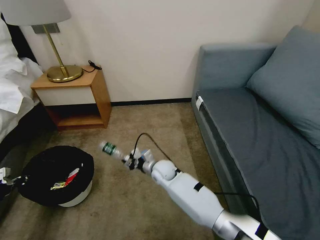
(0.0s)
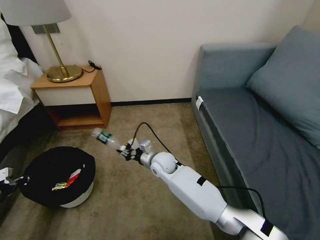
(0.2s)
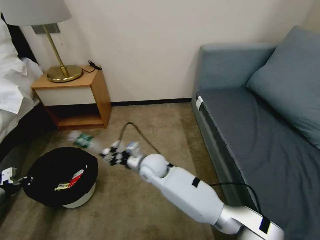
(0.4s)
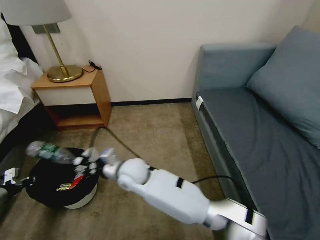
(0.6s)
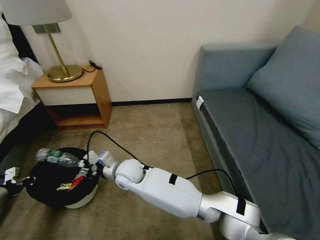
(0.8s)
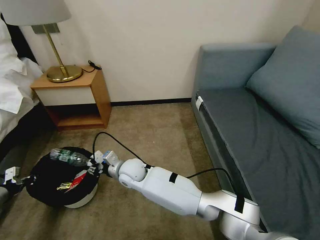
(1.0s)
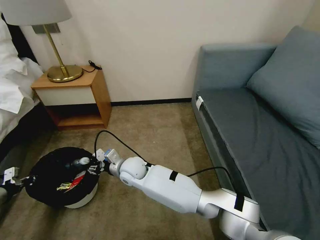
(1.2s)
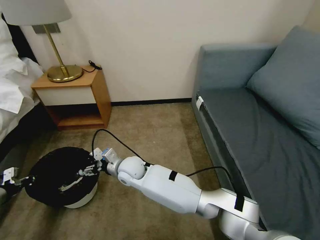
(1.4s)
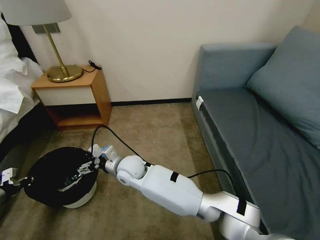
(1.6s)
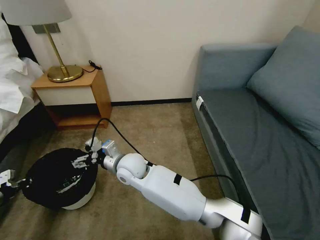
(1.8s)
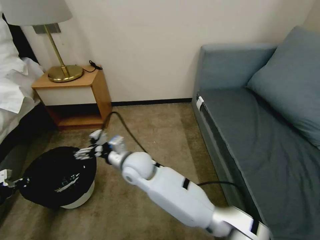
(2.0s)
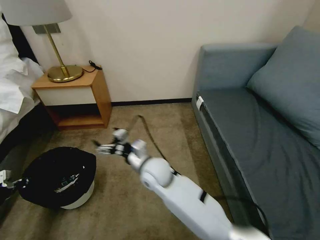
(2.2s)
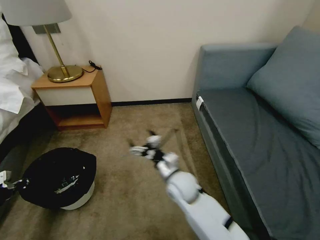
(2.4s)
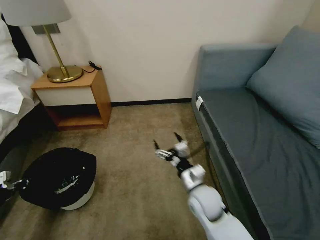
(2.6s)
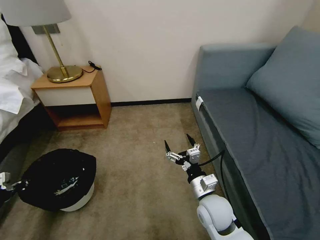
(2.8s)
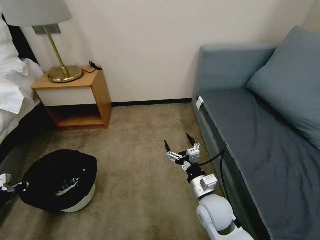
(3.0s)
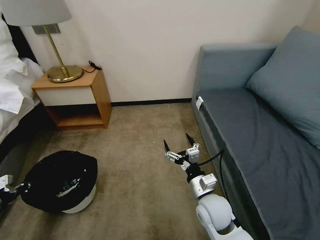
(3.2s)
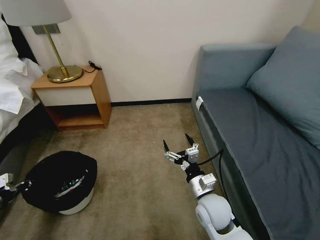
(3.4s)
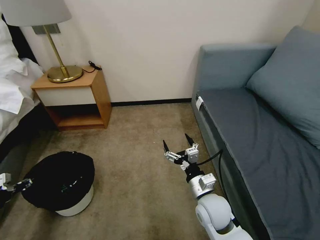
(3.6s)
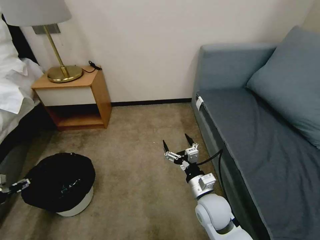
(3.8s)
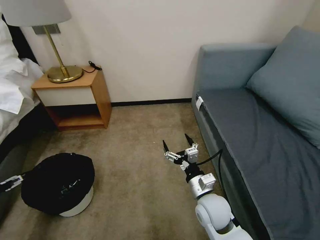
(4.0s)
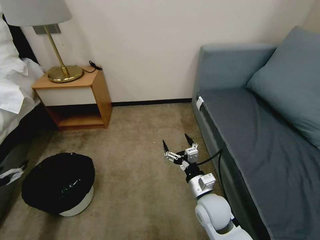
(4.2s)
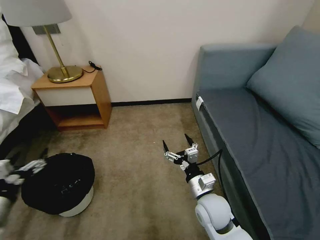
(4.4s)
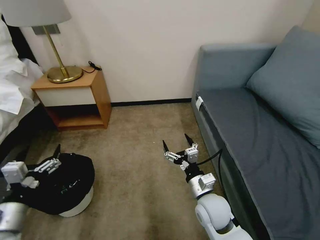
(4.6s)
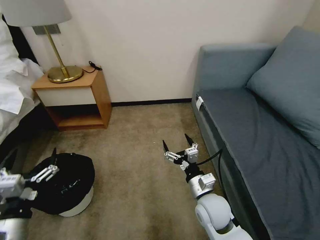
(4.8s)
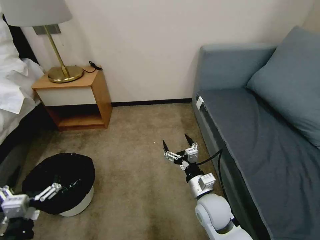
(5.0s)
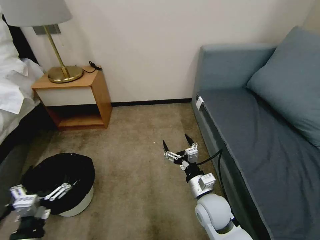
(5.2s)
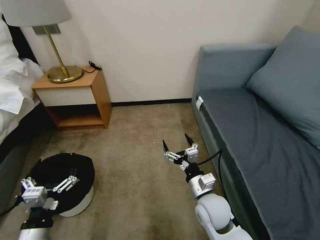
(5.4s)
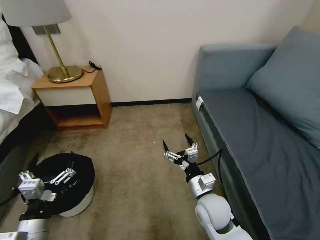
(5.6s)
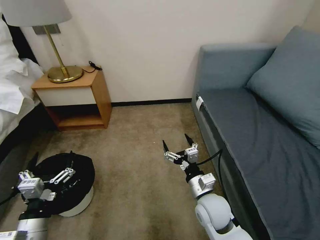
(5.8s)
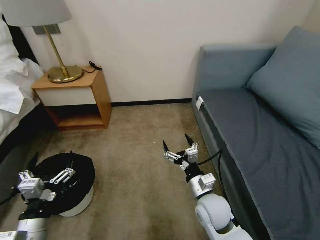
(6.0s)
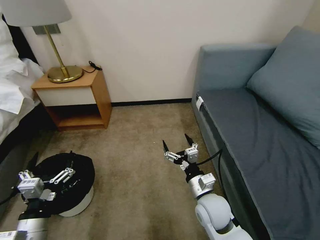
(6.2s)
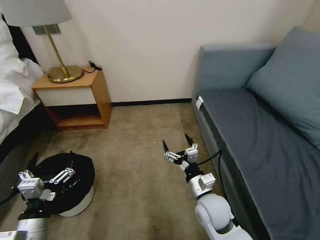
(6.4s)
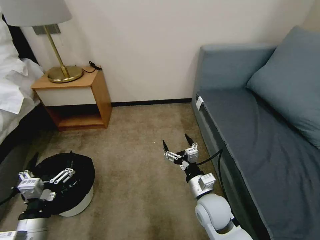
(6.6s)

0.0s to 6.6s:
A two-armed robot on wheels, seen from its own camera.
Task of the whole recording: Pick up the trash bin, then pick up the garbage on the floor and place it into the trash bin.
0.0s to 1.6s: The right gripper is displaced to the left and upward by about 15 cm, and opens up.
1.6s to 3.2s: The right gripper heads to the right and backward, covering approximately 30 cm.
3.2s to 5.0s: The left gripper goes roughly 25 cm to the right and backward, and opens up.
5.0s to 6.6s: The grippers make only small movements.

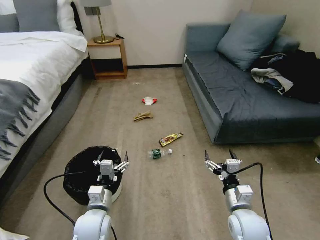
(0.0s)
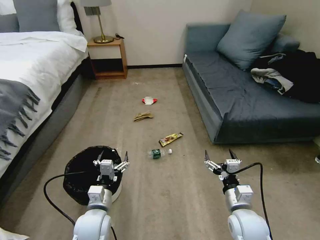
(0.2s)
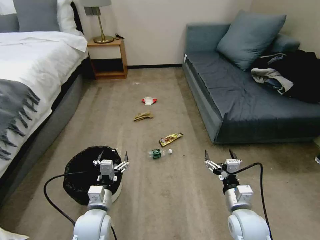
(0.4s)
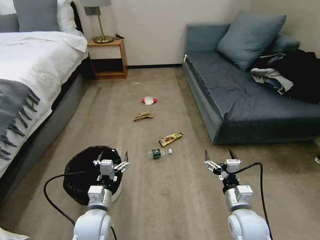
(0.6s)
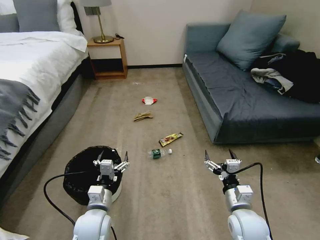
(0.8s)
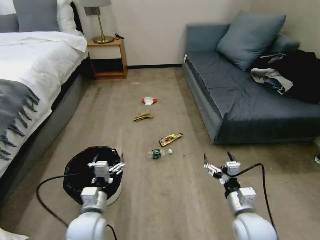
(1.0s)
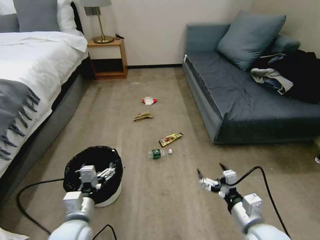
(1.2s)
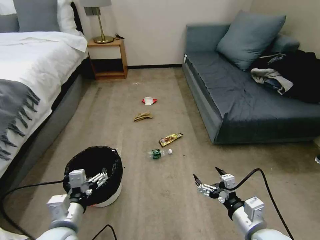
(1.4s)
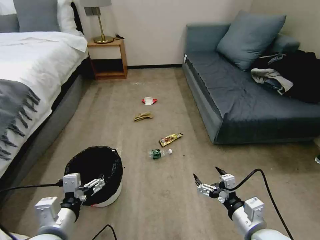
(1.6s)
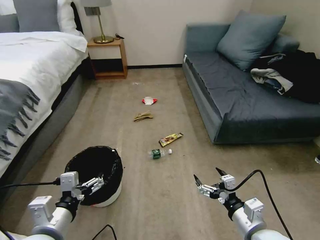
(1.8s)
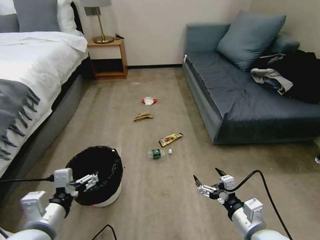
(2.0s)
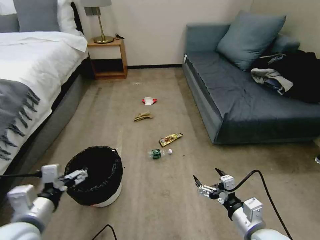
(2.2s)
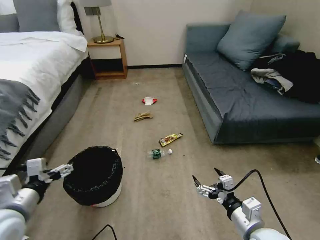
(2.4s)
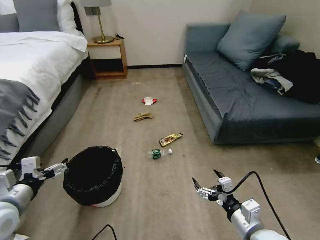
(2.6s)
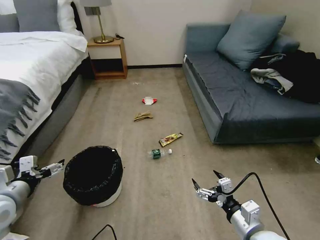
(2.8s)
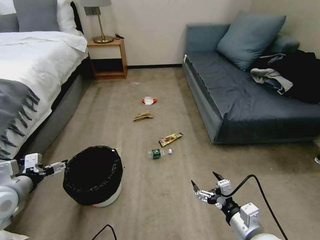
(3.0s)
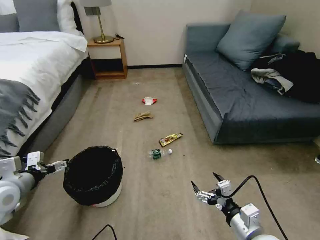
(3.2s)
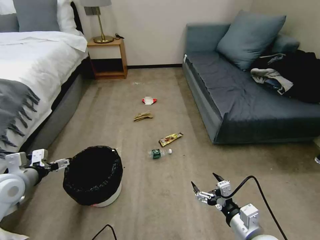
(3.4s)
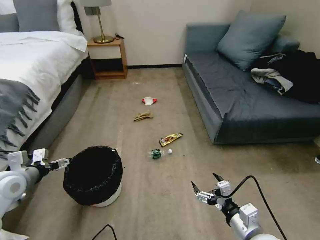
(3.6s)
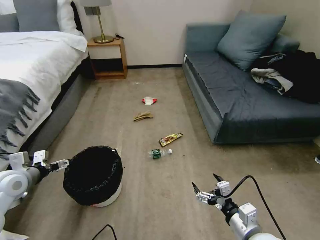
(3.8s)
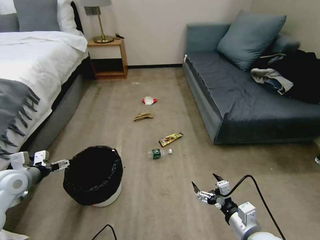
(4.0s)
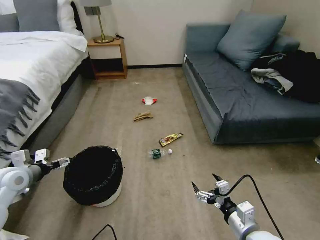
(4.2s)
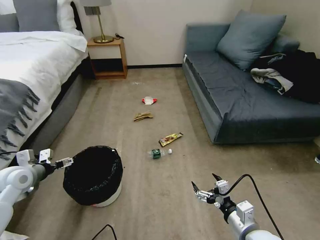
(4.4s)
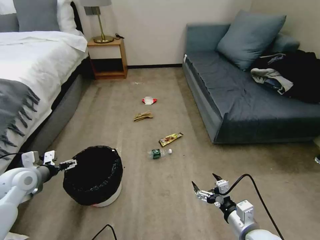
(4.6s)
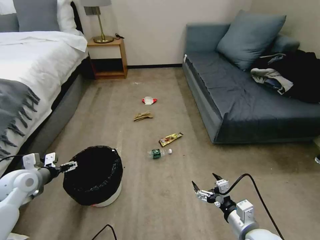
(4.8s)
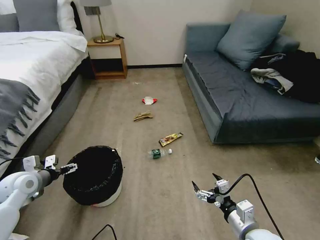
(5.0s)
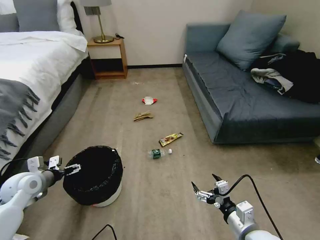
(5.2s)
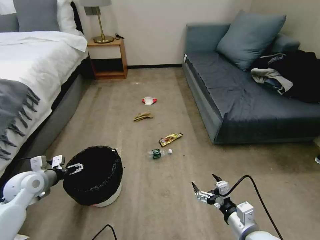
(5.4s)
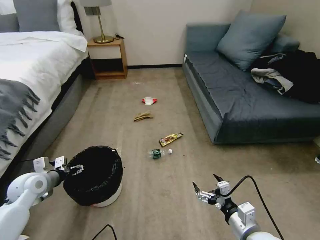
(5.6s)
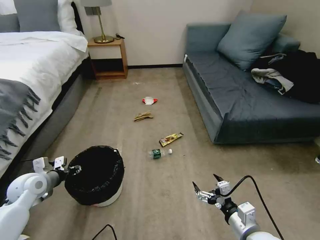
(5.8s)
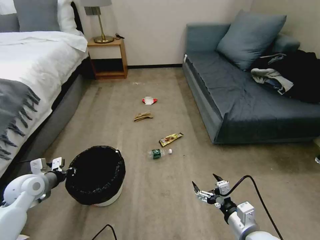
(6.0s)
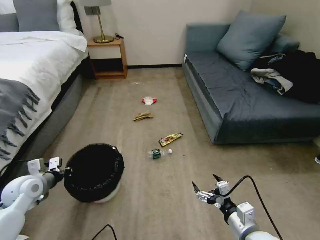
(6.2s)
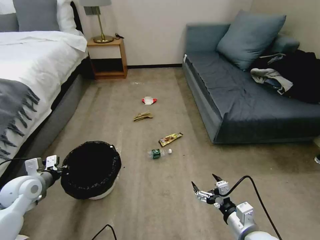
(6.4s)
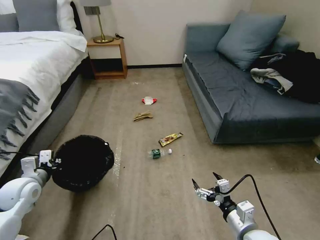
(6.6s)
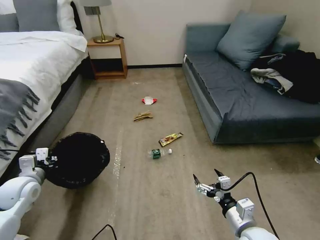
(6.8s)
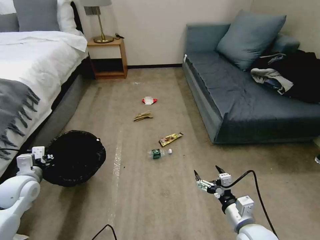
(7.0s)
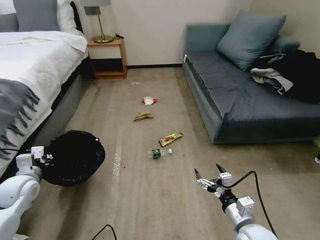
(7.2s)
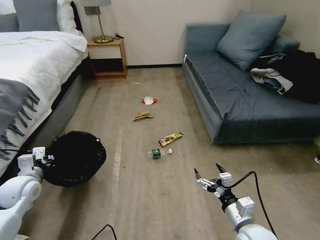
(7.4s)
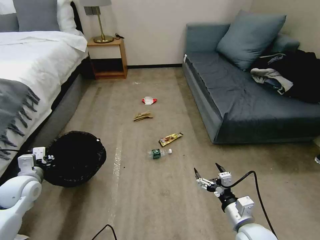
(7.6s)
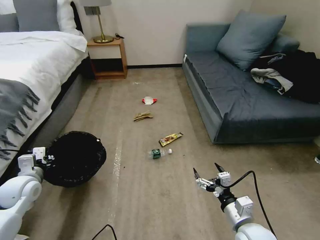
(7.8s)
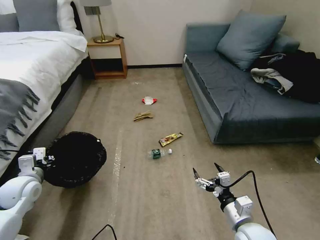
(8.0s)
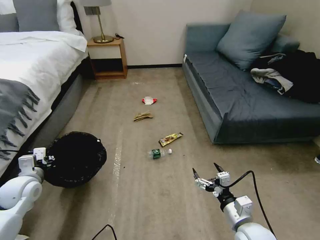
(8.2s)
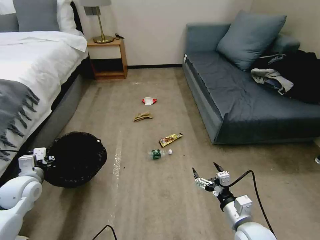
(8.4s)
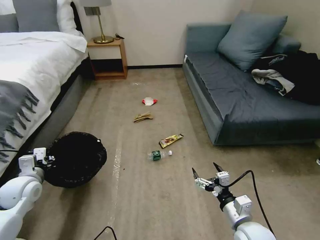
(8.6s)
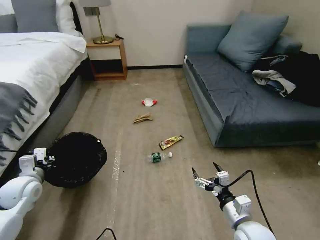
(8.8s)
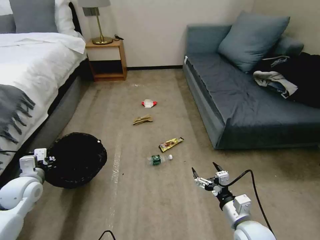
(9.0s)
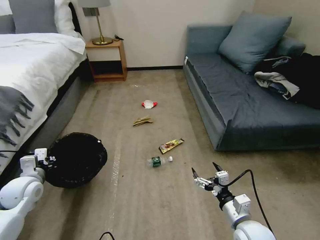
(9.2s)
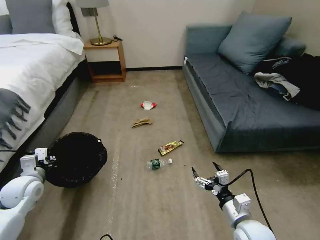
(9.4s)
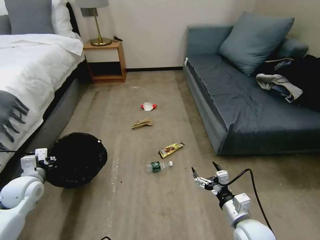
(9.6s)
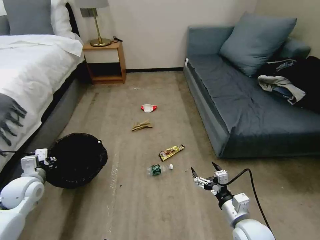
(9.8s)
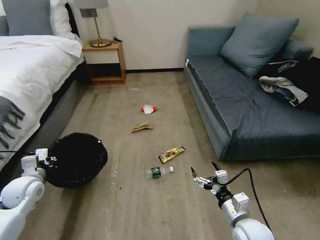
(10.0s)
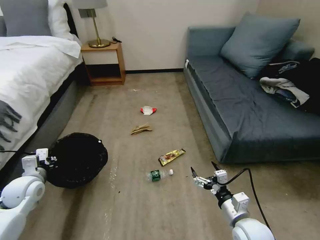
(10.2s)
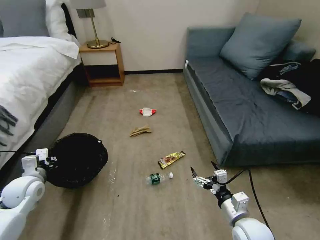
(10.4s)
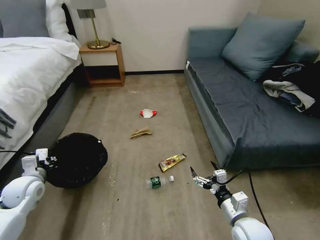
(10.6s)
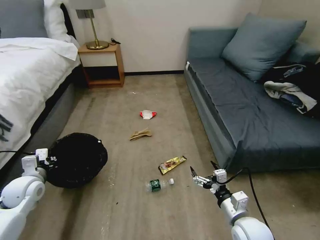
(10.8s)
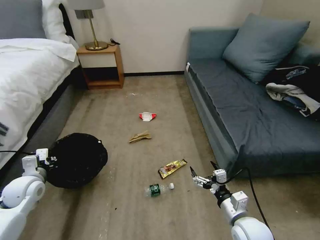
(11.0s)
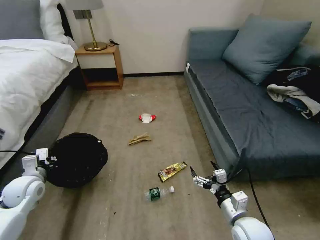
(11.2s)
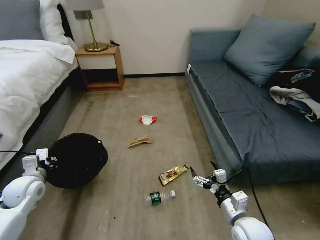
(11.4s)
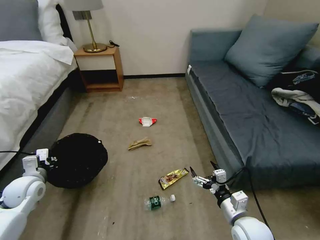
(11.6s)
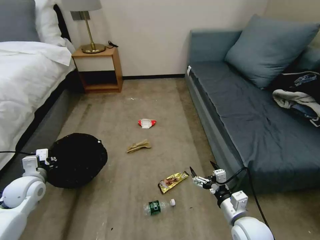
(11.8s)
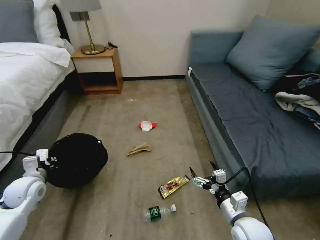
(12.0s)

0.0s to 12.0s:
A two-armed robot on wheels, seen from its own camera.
Task of the whole recording: Pick up the trash bin, then pick up the garbage on the floor and place it into the trash bin.
1.6s to 3.0s: The left gripper travels to the left and forward by some 20 cm.
3.0s to 4.4s: The left gripper moves forward, approximately 10 cm.
4.4s to 6.0s: The left gripper closes.
7.6s to 9.0s: Neither gripper changes place.

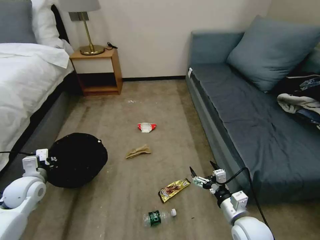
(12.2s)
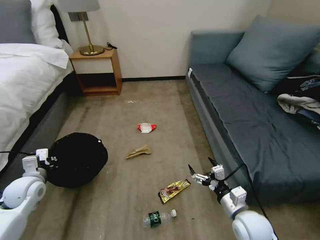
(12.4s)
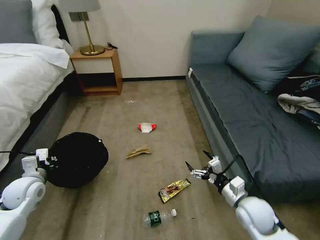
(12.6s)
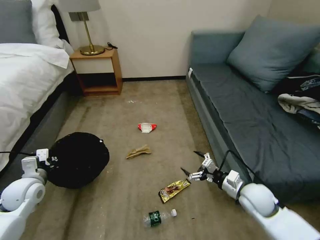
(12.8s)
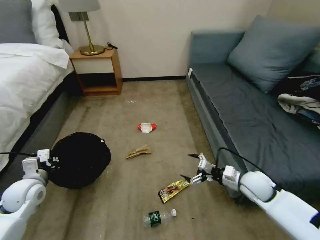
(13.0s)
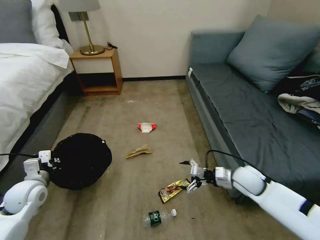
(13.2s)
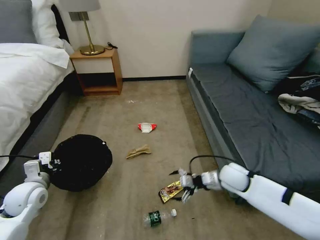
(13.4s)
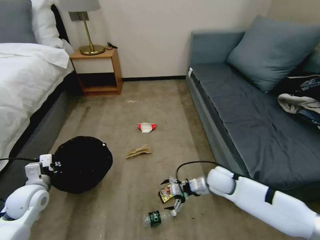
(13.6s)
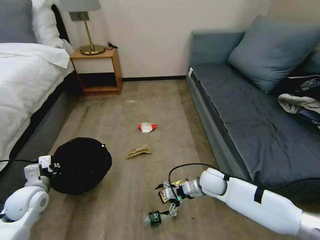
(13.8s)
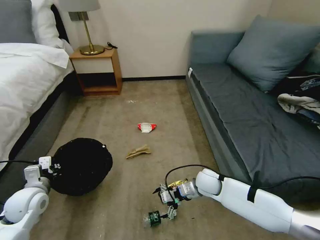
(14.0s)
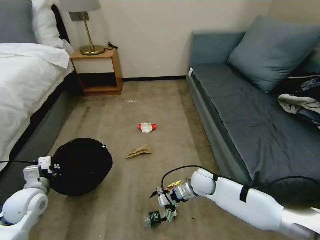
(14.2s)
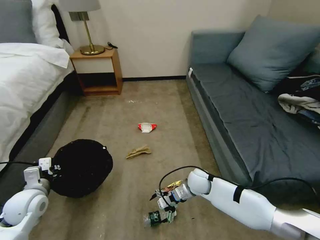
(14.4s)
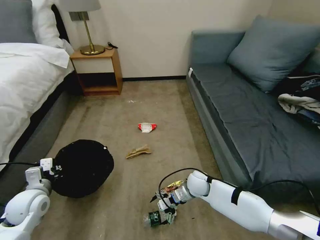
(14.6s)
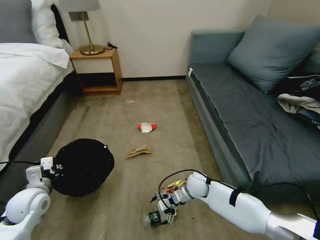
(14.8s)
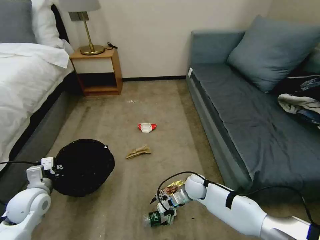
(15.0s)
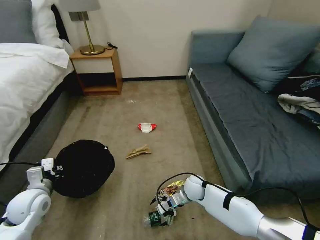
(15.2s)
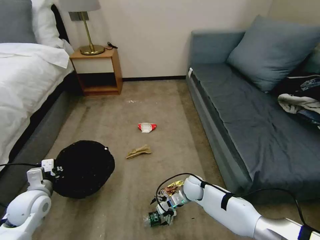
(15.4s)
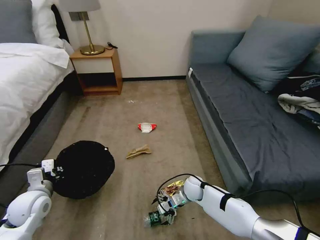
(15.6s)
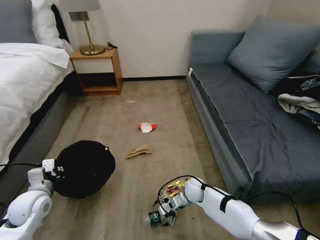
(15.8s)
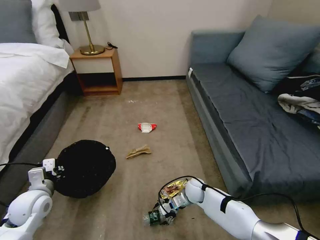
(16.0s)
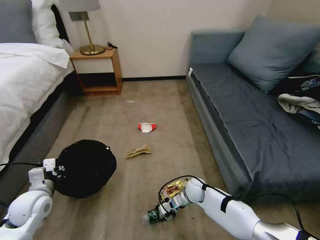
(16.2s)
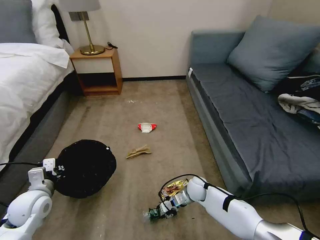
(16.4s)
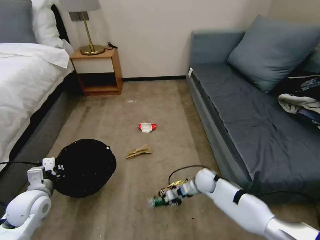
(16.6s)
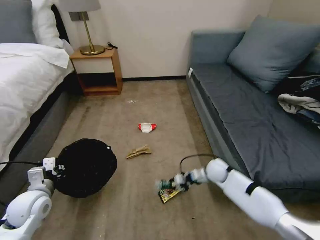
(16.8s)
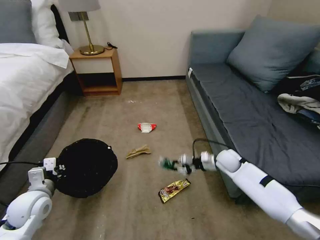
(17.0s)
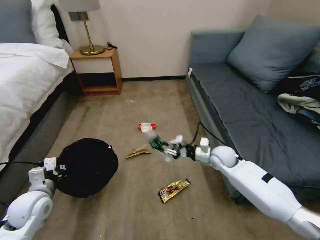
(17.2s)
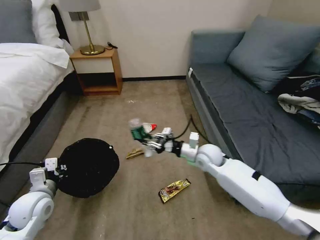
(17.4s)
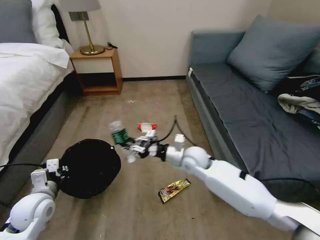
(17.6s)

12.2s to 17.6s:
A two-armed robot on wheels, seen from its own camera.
Task of the whole recording: Pick up the trash bin, then pick up the garbage on the floor and place it into the trash bin.
12.2s to 13.6s: The right gripper is displaced forward by roughly 15 cm.
13.6s to 15.0s: The right gripper travels downward and to the left by some 10 cm.
15.0s to 16.2s: The right gripper closes its fingers.
16.2s to 17.6s: The right gripper heads upward, covering approximately 20 cm.
